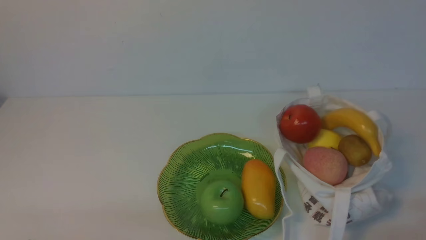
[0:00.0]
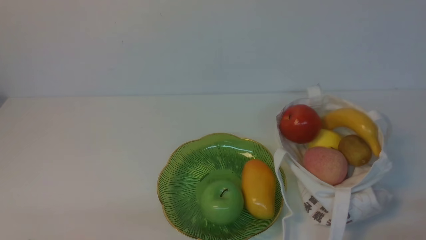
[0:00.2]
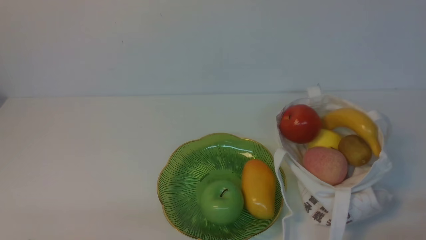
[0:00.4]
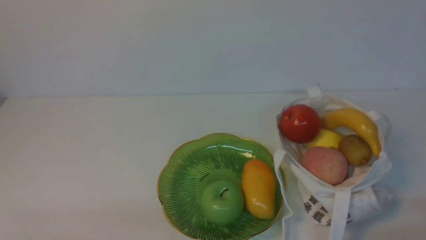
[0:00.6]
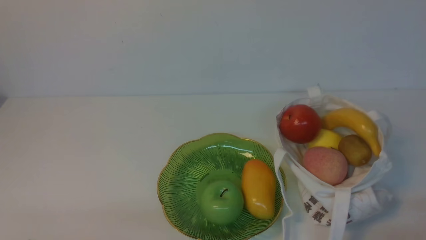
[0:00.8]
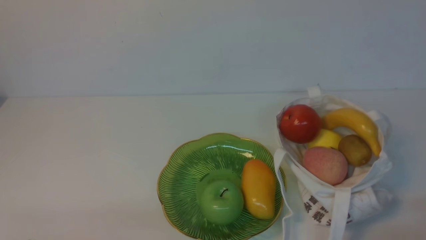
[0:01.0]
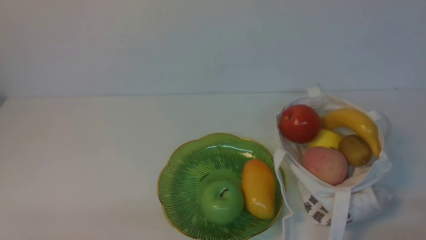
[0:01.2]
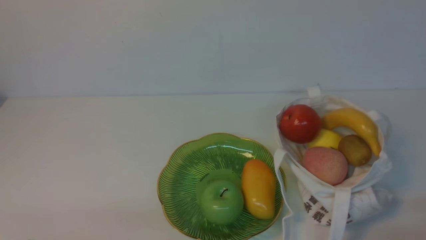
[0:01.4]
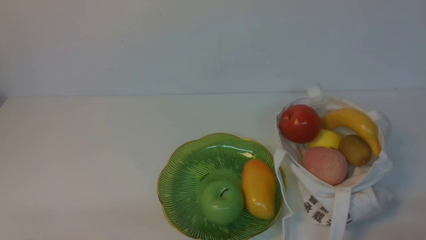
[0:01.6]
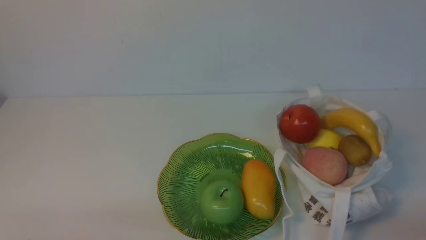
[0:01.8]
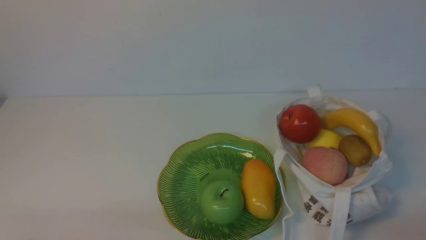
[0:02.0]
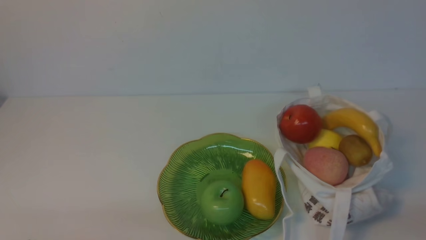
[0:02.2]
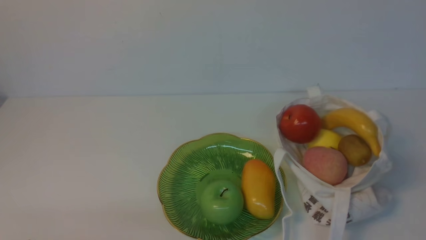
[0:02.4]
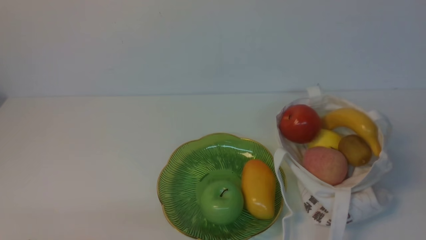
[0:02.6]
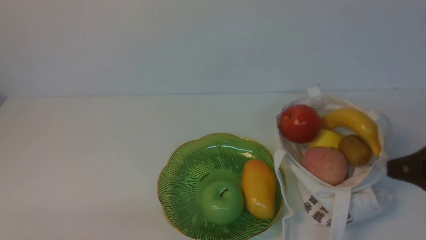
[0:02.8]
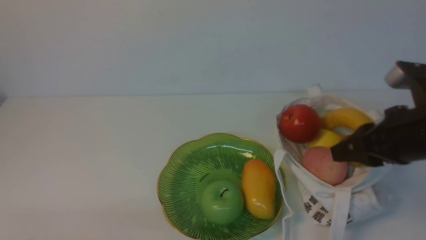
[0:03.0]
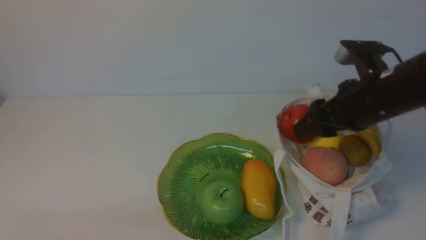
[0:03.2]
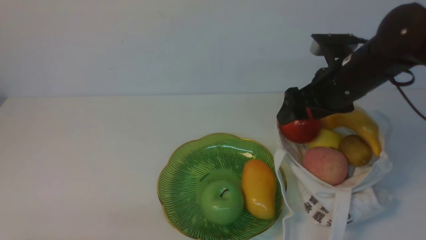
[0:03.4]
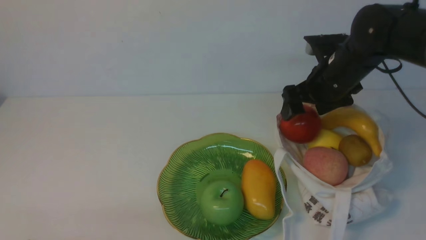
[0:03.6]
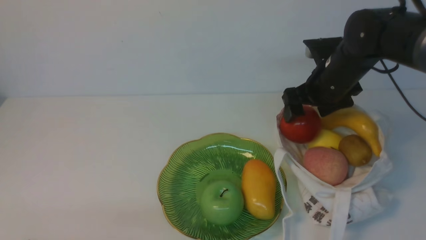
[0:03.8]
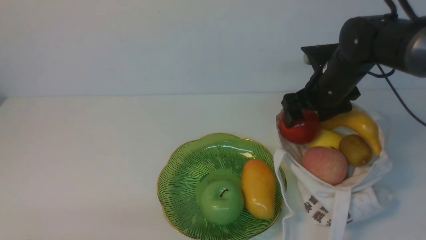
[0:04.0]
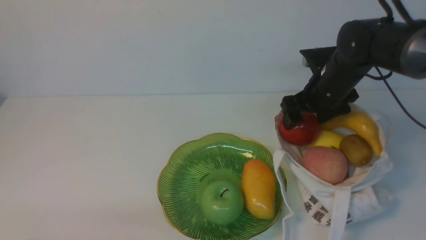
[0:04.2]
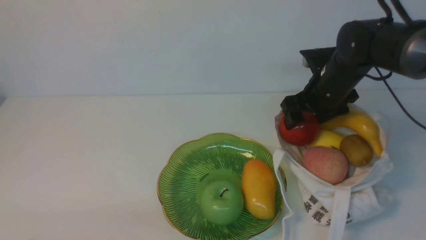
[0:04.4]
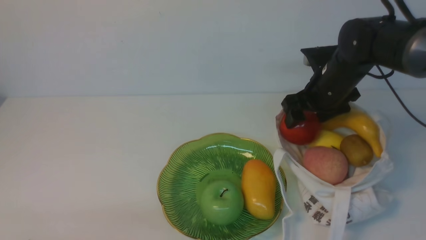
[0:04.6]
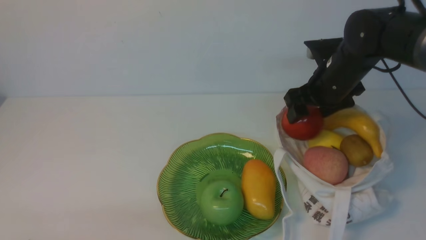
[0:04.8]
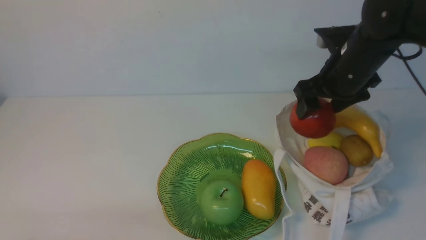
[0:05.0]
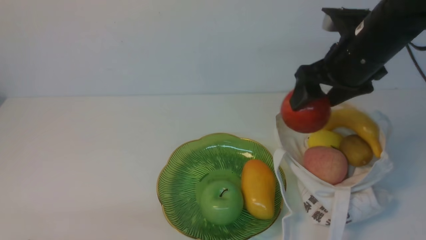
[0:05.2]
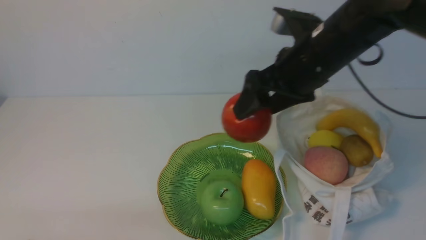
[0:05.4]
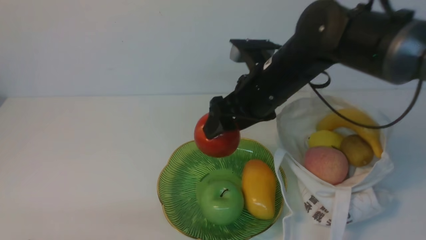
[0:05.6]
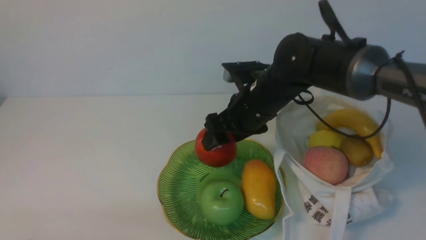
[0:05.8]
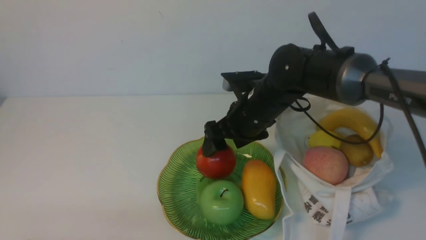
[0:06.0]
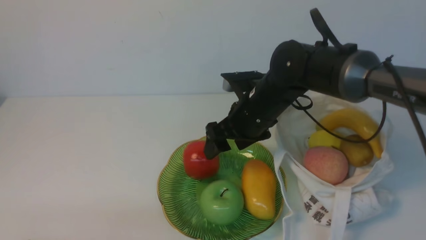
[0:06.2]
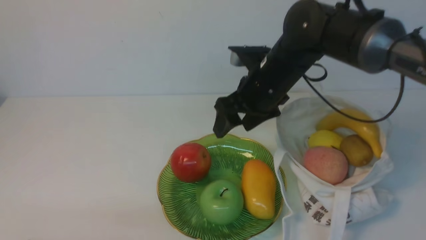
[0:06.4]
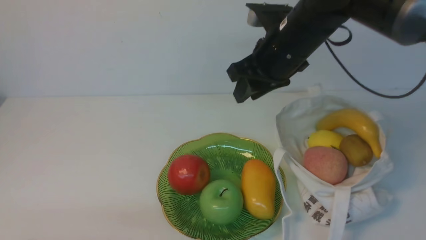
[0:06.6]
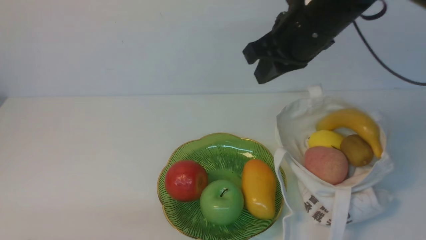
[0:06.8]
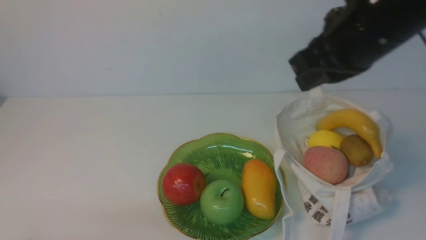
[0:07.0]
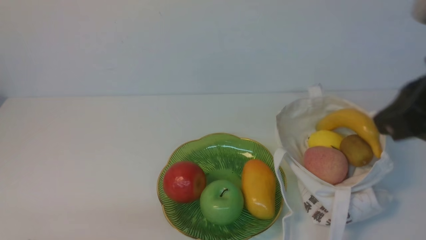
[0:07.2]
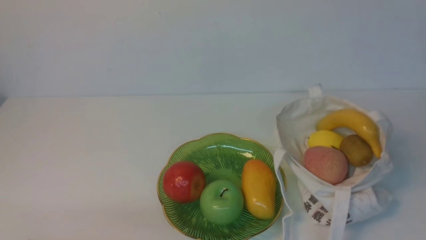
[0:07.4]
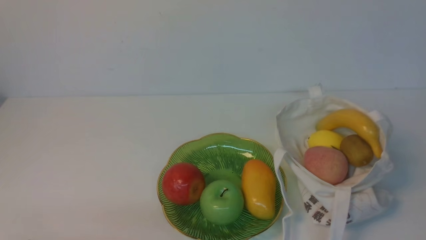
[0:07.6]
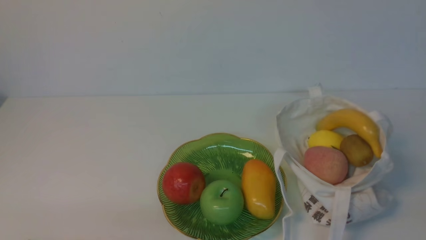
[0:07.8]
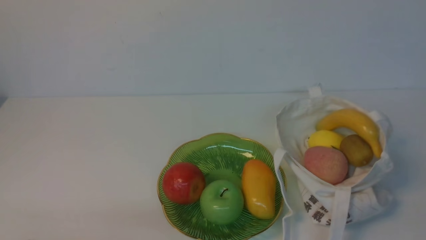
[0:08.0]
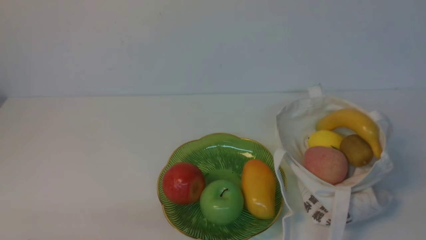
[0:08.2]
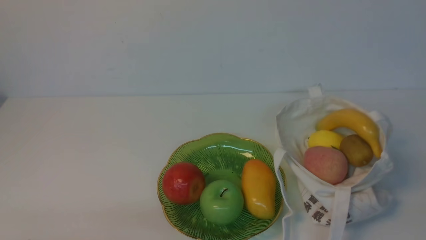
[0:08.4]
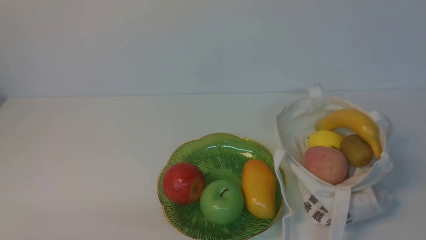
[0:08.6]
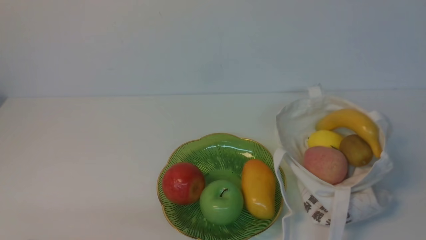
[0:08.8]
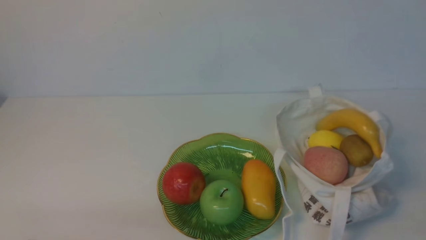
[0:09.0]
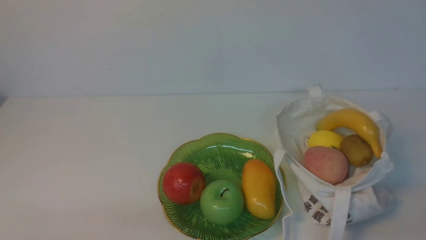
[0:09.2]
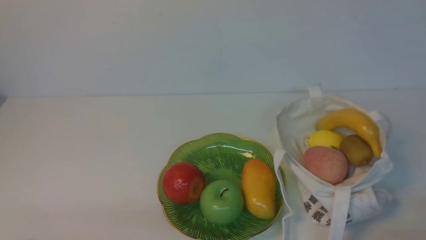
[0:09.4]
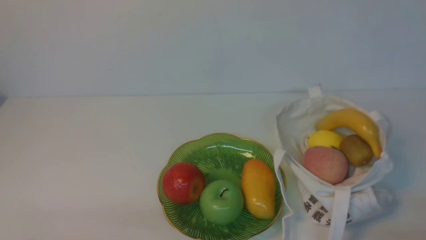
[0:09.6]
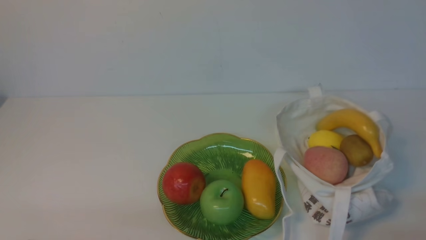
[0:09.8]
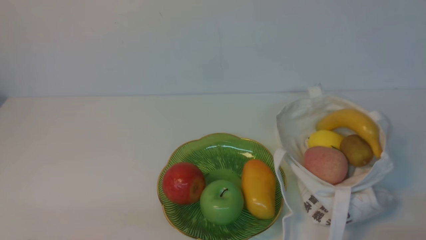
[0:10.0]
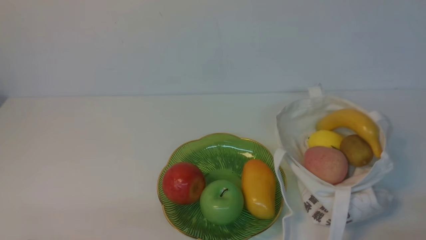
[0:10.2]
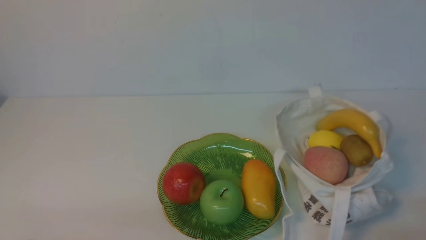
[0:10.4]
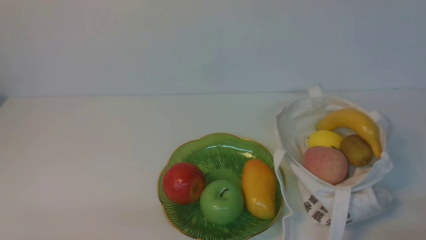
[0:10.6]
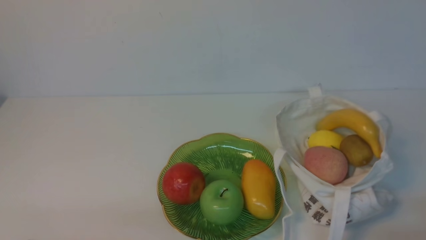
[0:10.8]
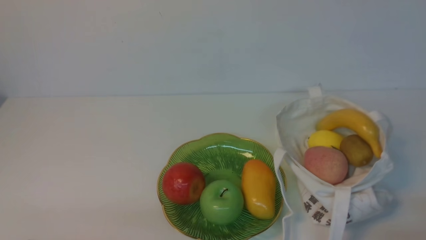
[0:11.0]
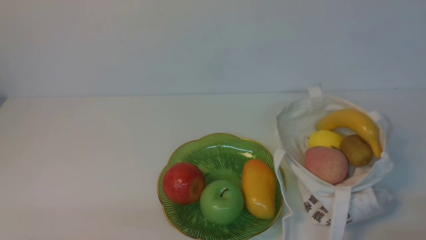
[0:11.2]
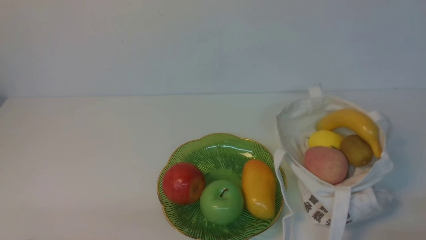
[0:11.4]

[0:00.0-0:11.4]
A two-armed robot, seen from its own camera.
Step, 0:00.0 to 0:04.8: use the right arm to grab an apple from the bag.
Step, 0:05.0 to 0:06.2: use the right arm to put the apple into the empty plate on the left.
0:01.4 to 0:02.8: The right gripper heads upward and forward, covering approximately 15 cm.
0:02.8 to 0:04.2: The right gripper shifts approximately 30 cm forward, and opens.
0:04.2 to 0:05.6: The right gripper shifts about 15 cm to the left, upward and backward.
0:05.6 to 0:07.2: The right gripper travels backward, upward and to the right by some 20 cm, and closes up.
0:07.2 to 0:08.6: The right gripper goes approximately 25 cm backward, downward and to the right.
0:10.0 to 0:11.4: Both grippers stay about where they are.
